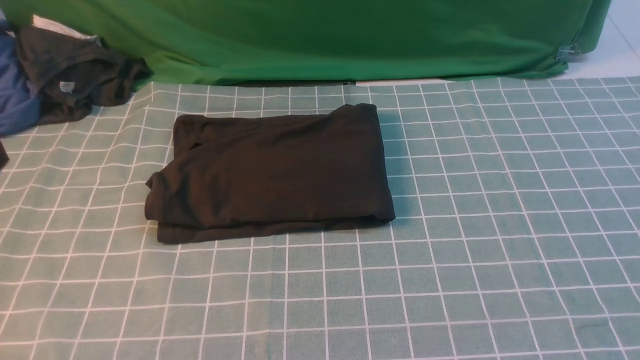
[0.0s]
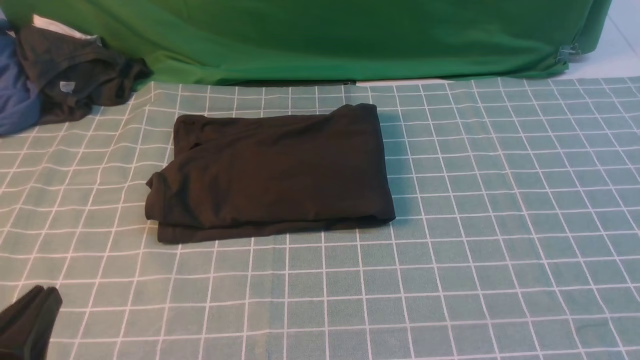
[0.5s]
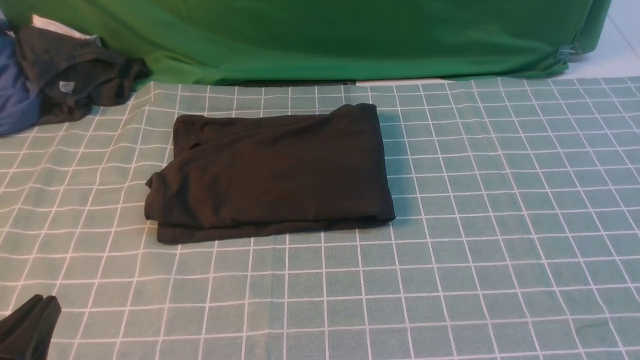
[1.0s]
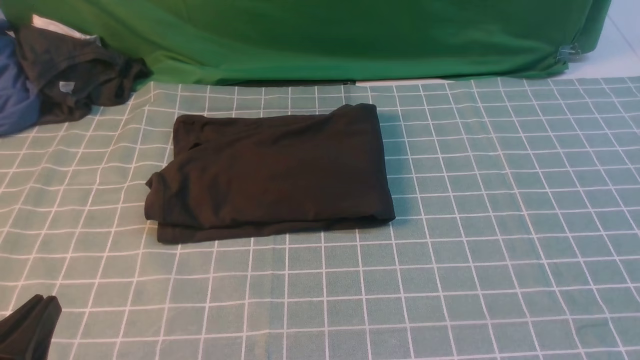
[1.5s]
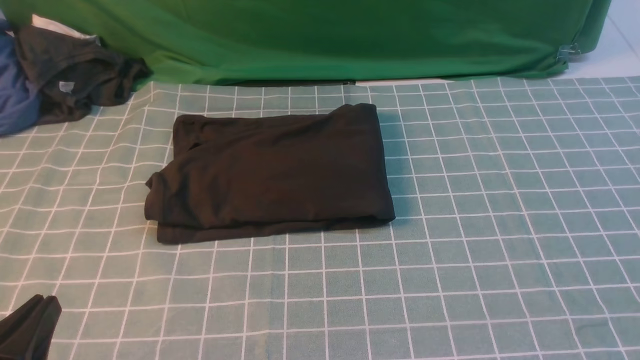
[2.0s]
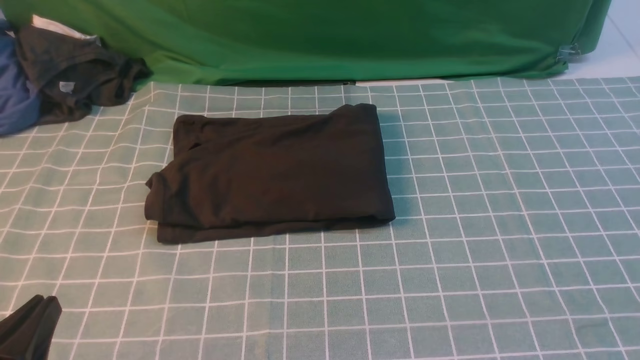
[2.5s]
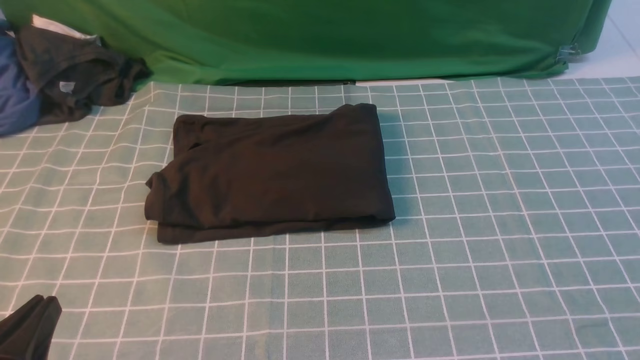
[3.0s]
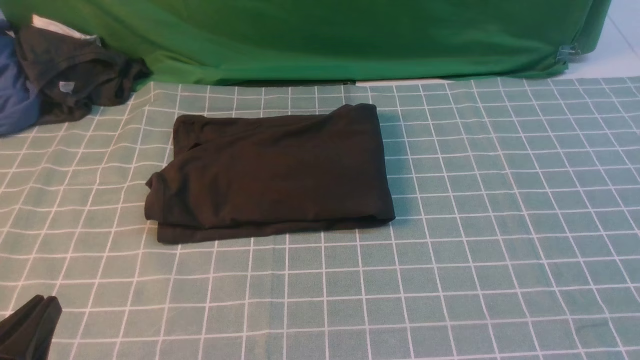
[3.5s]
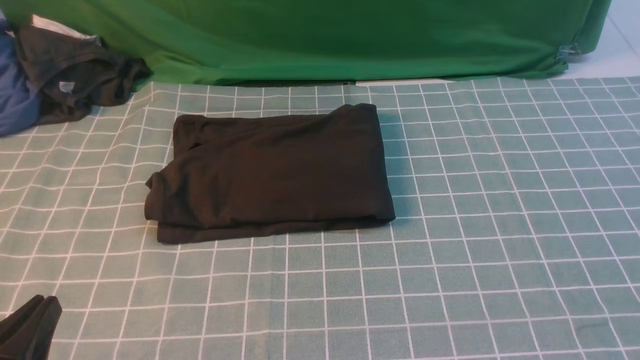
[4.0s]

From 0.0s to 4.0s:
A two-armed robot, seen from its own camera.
From 0.0s to 2.0s: The left gripper shifts about 15 cm downward.
